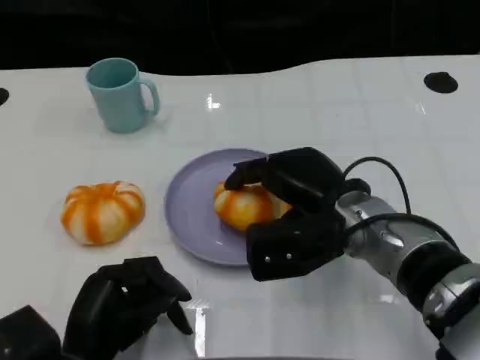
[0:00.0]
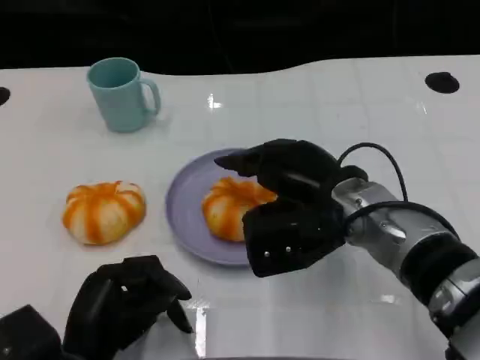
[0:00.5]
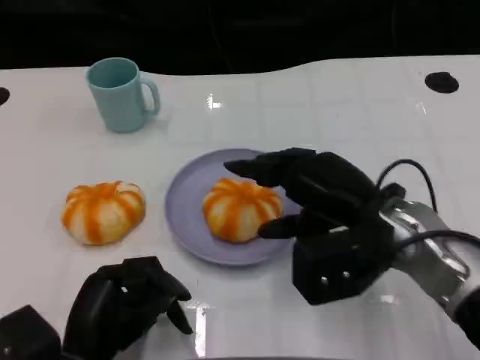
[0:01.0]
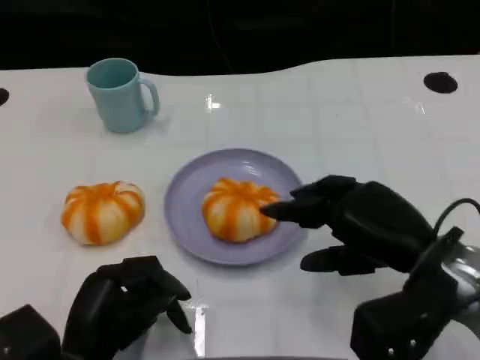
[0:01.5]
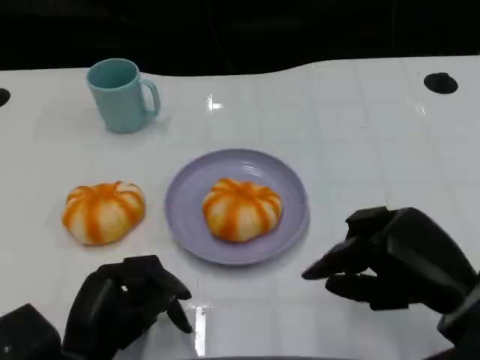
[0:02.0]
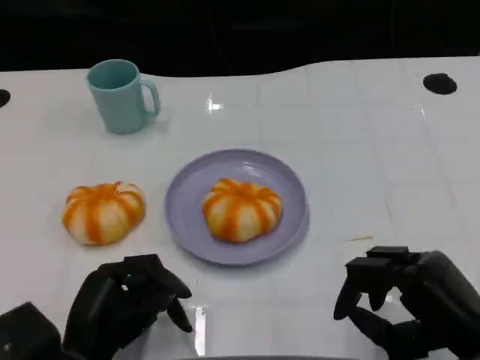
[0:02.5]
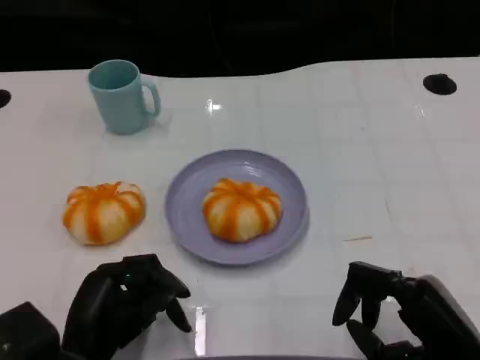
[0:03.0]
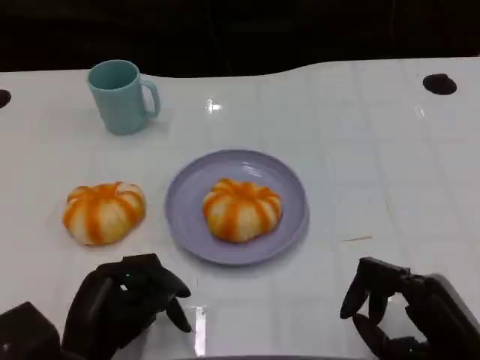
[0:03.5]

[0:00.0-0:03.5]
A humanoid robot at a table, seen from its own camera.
Task of the whole recording: Grasp the bread from the table and place it into the plate.
0:00.0 to 0:02.0: The right hand heads to the right and backward, covering some 15 cm.
0:02.0 to 0:03.5: The right hand moves approximately 5 cm.

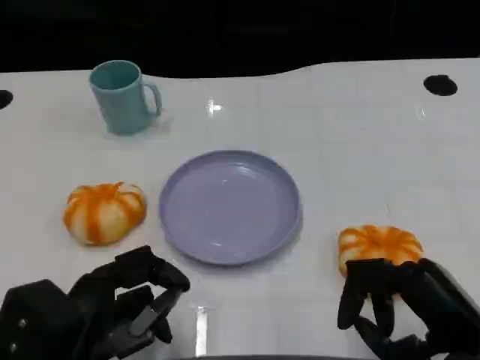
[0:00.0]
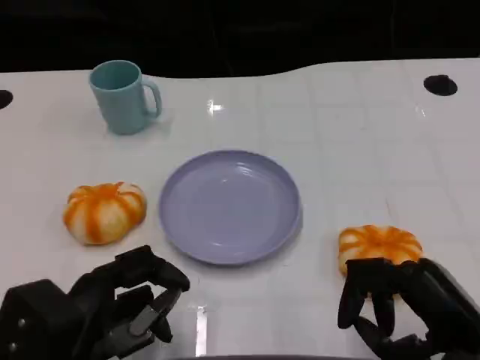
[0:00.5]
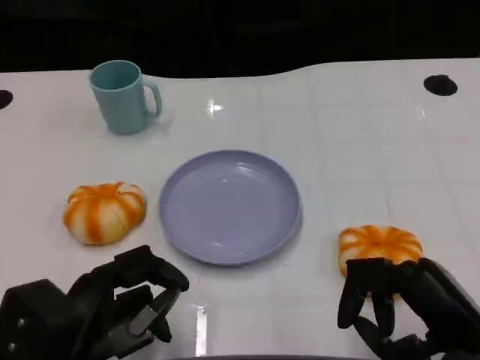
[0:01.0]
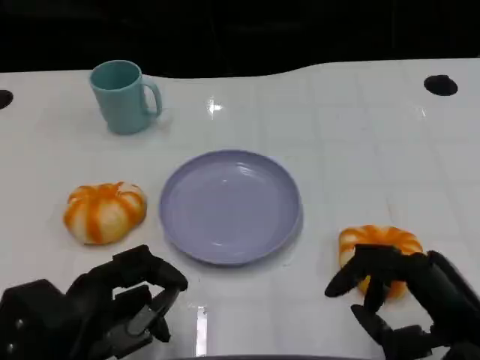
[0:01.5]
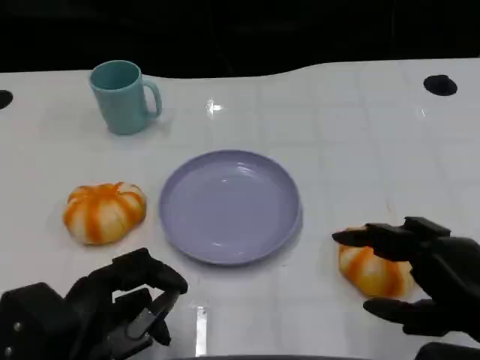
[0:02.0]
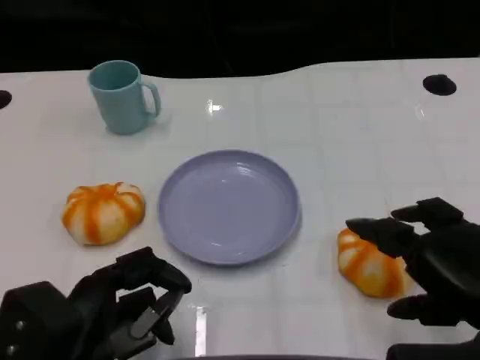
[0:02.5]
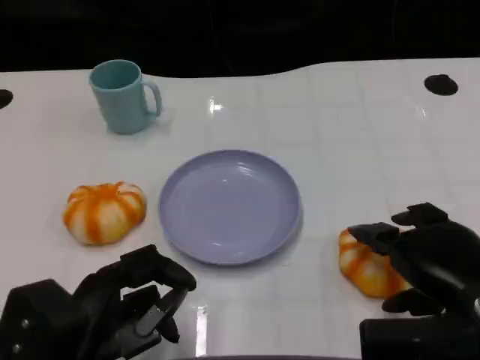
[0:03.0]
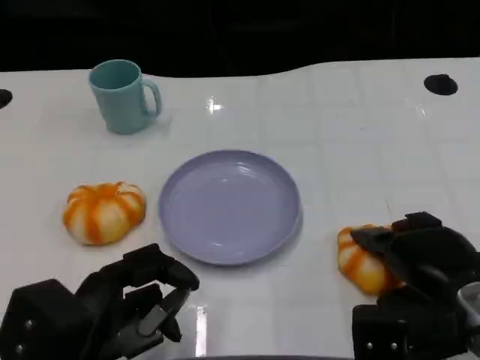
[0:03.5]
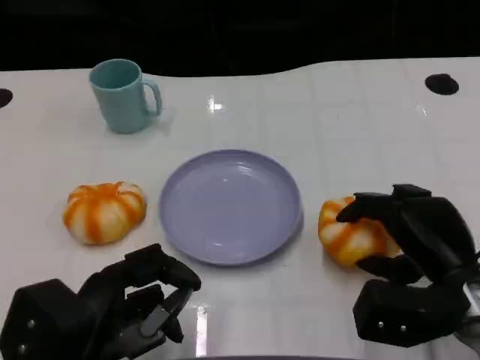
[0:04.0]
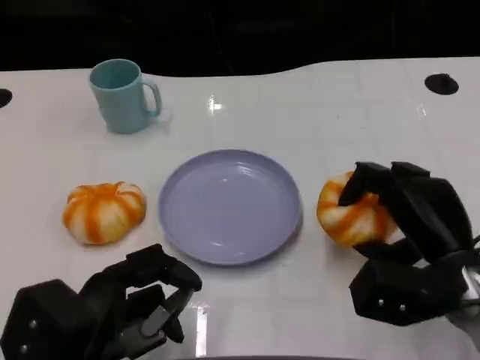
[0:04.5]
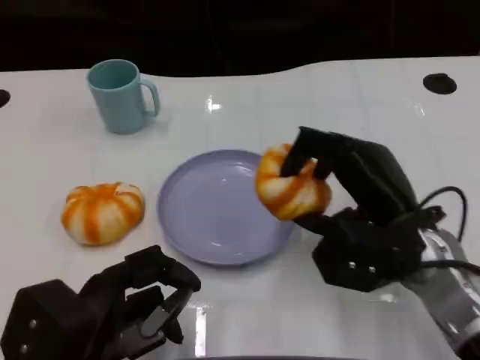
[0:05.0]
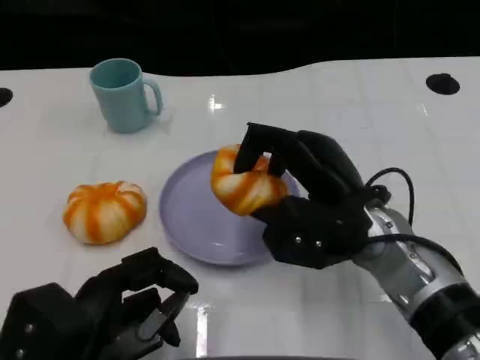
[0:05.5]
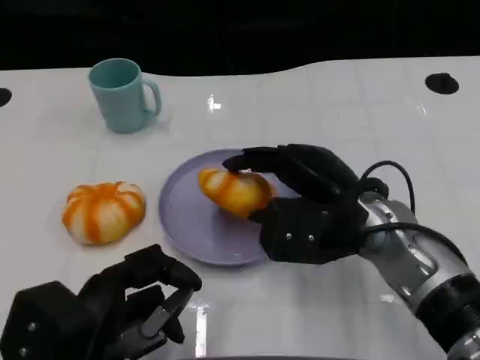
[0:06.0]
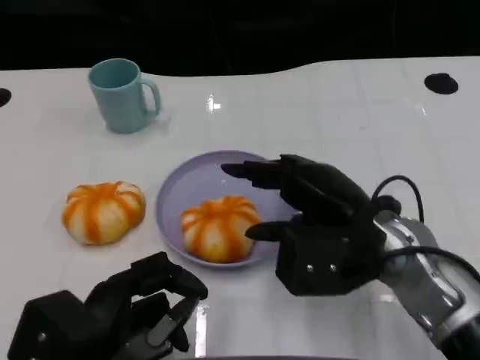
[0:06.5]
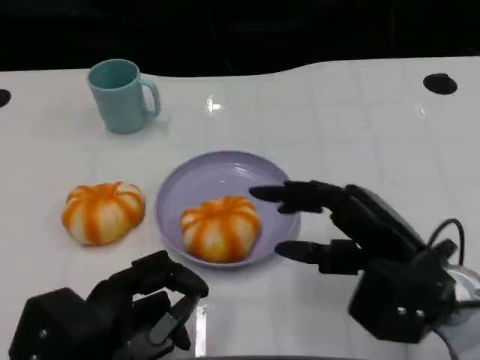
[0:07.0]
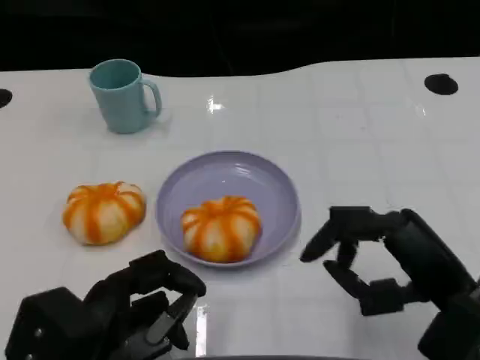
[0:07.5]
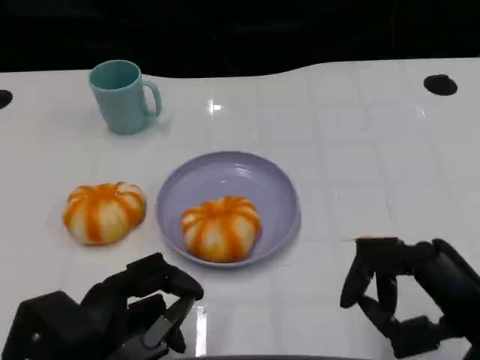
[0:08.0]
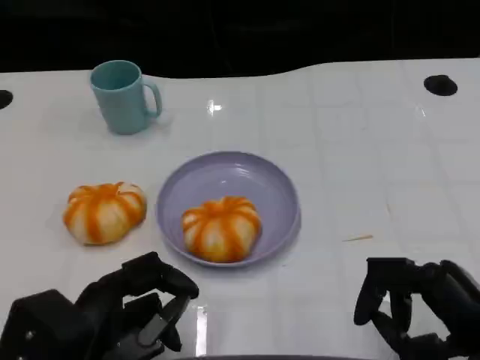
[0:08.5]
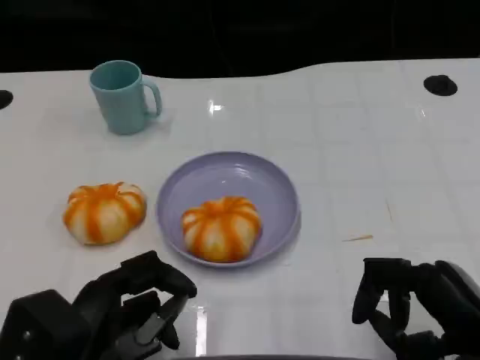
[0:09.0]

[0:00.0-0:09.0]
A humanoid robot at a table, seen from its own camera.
Task of the whole recording: Grasp the bread from the table and place it into the plate.
0:02.0 to 0:04.5: The right hand moves forward, approximately 10 cm.
0:04.5 to 0:07.0: The right hand moves some 10 cm to the left and comes back.
0:07.0 to 0:09.0: The right hand heads backward and to the right, covering some 10 cm.

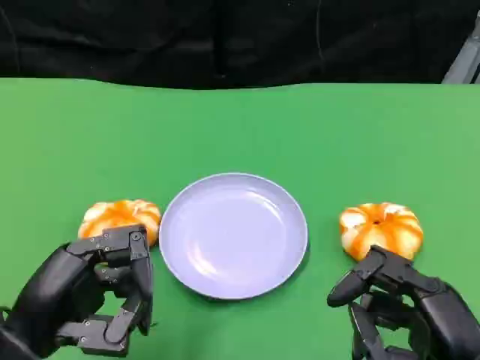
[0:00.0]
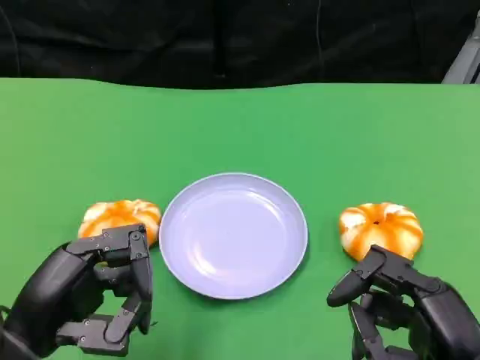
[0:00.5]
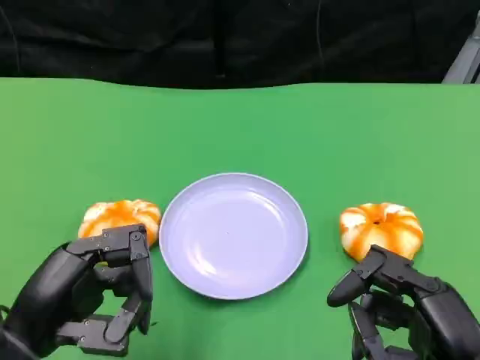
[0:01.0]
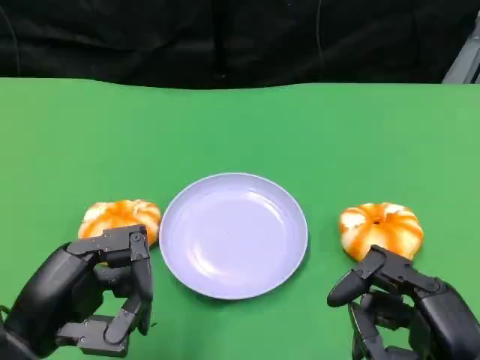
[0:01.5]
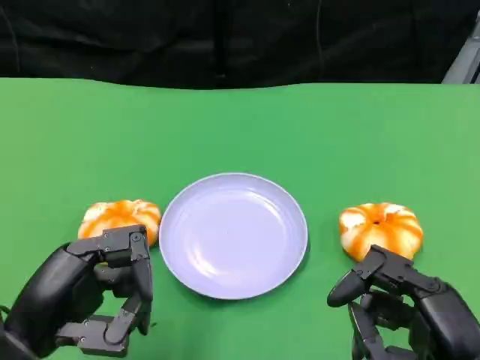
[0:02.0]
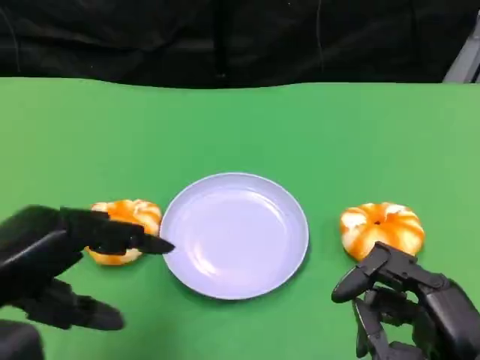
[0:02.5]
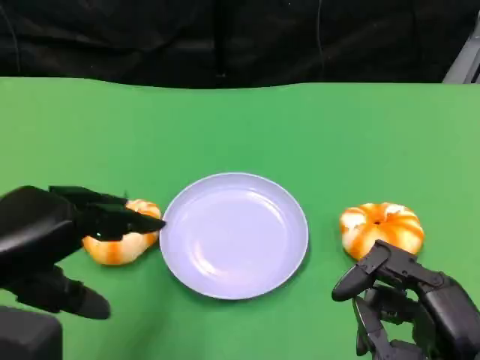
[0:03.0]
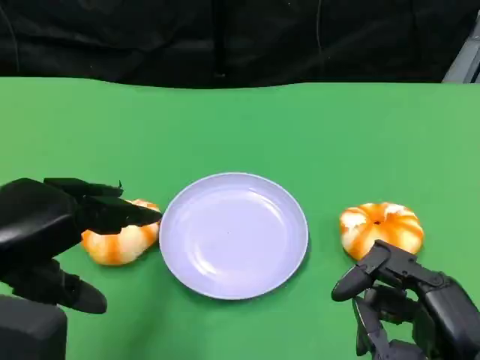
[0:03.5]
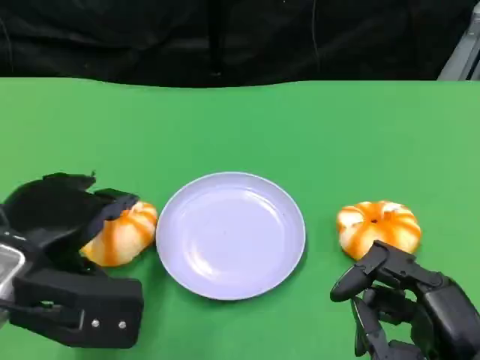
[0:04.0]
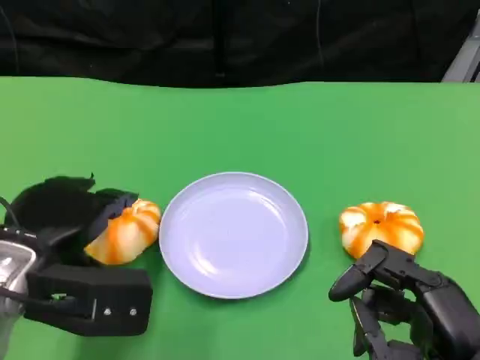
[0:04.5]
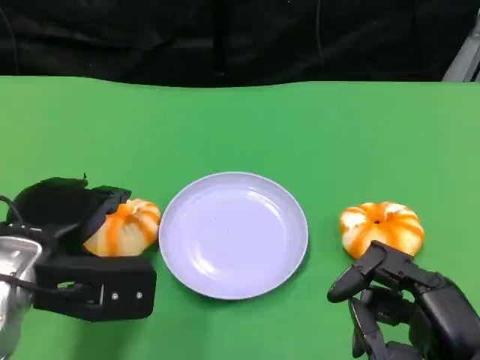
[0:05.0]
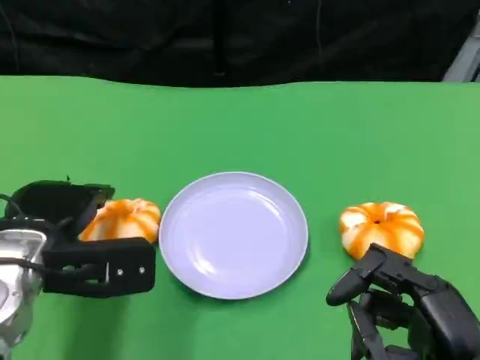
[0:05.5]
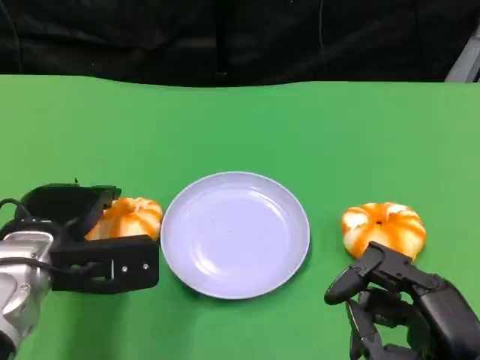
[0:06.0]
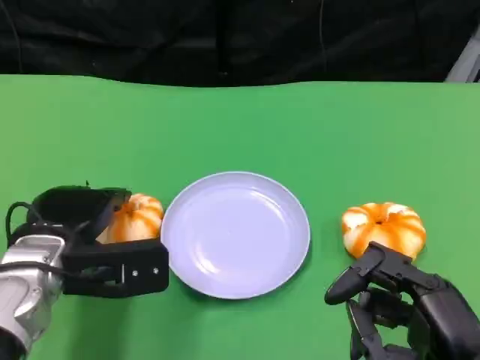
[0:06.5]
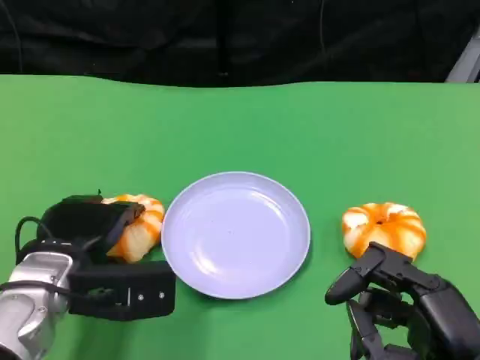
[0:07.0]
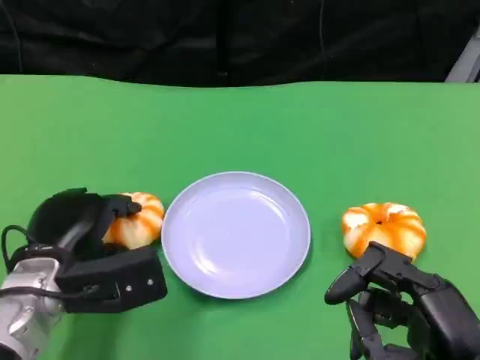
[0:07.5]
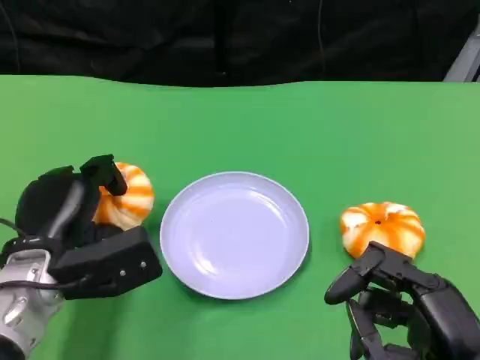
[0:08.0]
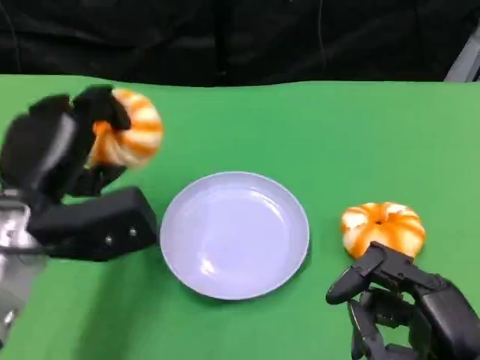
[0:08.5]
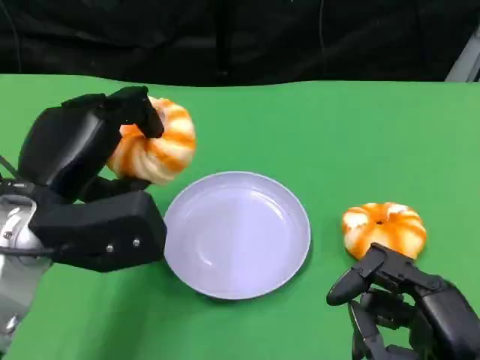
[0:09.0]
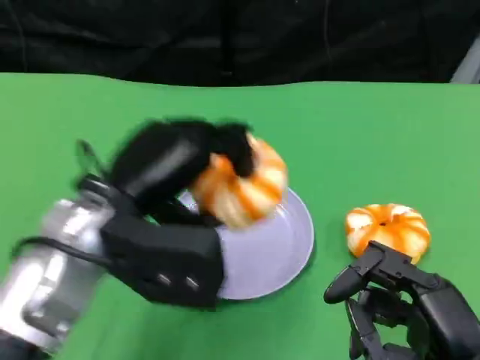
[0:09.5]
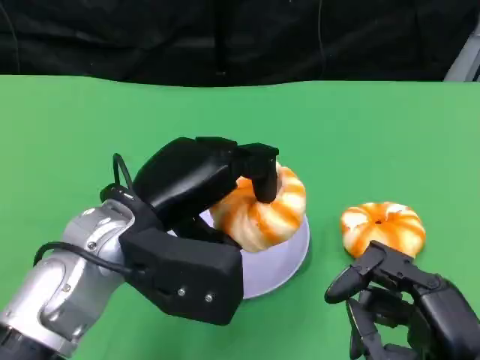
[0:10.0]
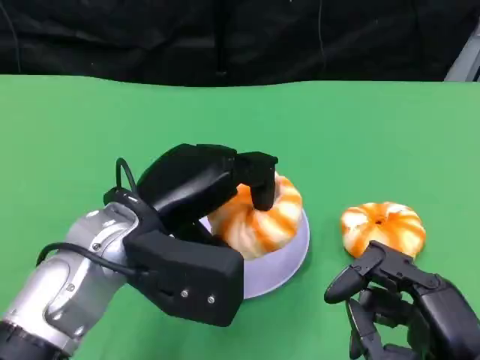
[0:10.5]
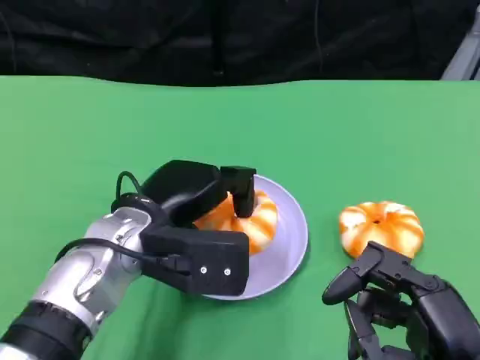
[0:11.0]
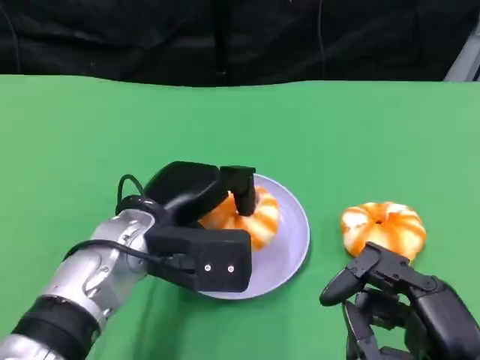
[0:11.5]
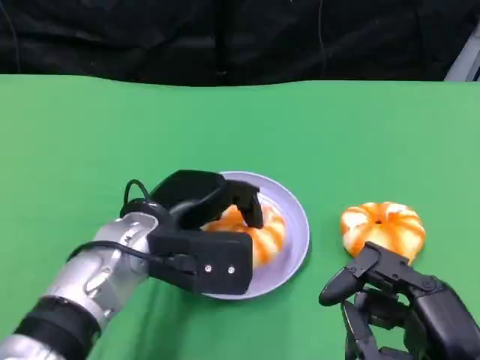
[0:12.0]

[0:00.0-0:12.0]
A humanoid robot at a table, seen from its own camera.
Task of the whole recording: Grasp the bread from the table and place it into the plate.
0:00.0 to 0:02.0: The two hands keep their place.
0:02.0 to 0:04.0: The left hand shifts some 5 cm forward.
0:04.0 to 0:06.0: The left hand is displaced downward by about 5 cm.
0:08.0 to 0:10.0: The left hand shifts approximately 15 cm upward and to the right.
0:10.0 to 0:12.0: The left hand travels downward by roughly 5 cm.

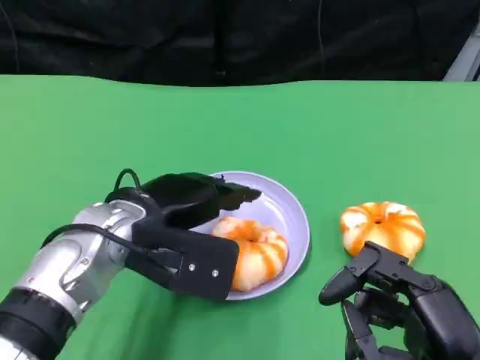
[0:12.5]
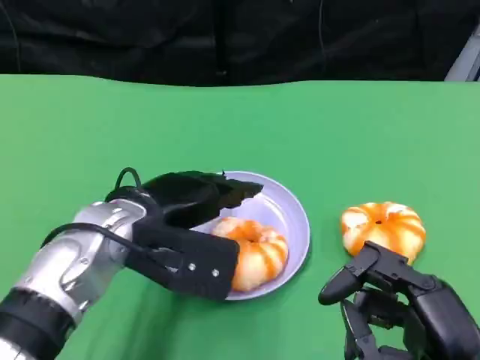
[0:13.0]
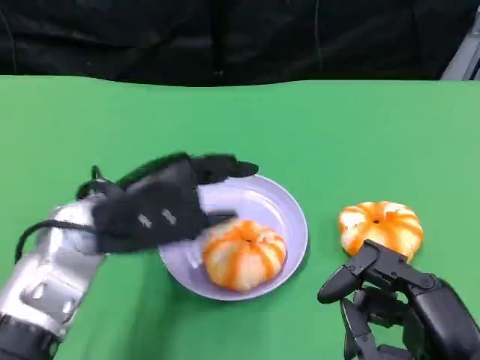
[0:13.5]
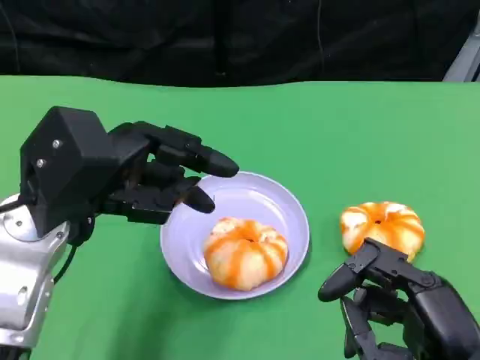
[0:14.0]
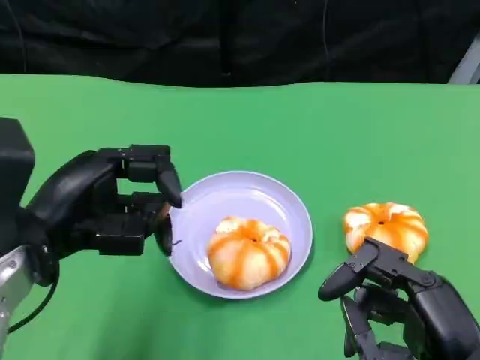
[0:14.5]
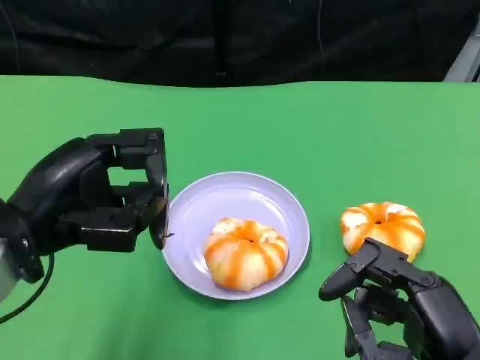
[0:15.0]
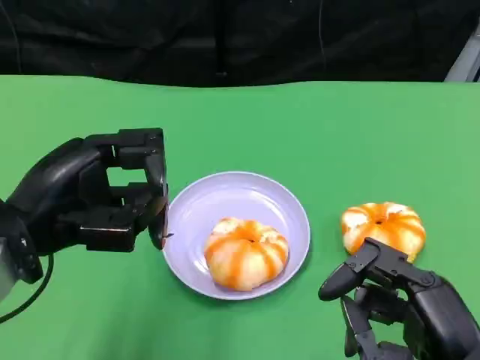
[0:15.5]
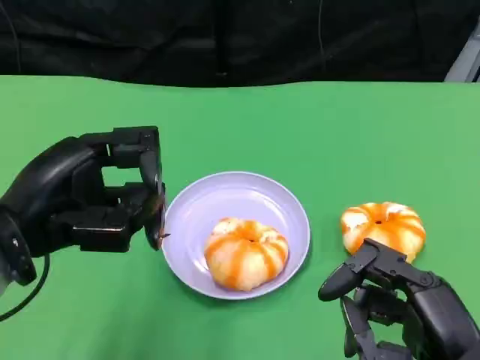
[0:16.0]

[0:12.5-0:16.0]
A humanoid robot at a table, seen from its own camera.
Task of the whole recording: Grasp the bread from the table and place it into the plate.
0:12.5 to 0:14.5: The left hand travels to the left and backward by approximately 10 cm.
0:14.5 to 0:16.0: There are only small adjustments of the hands.
